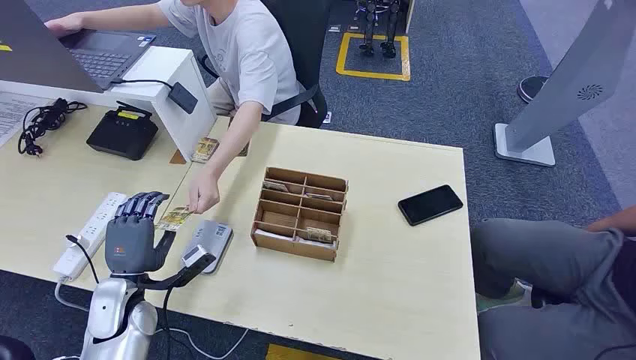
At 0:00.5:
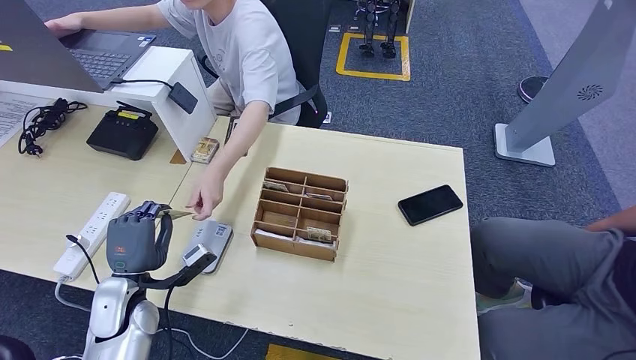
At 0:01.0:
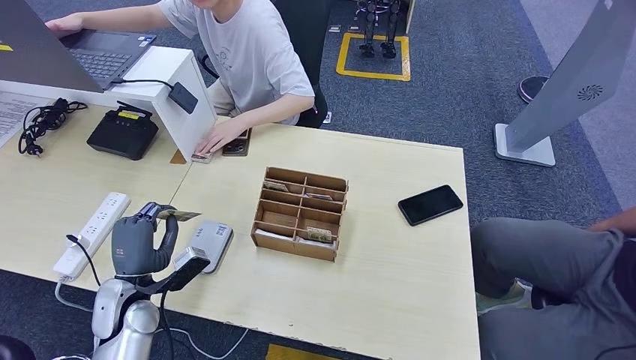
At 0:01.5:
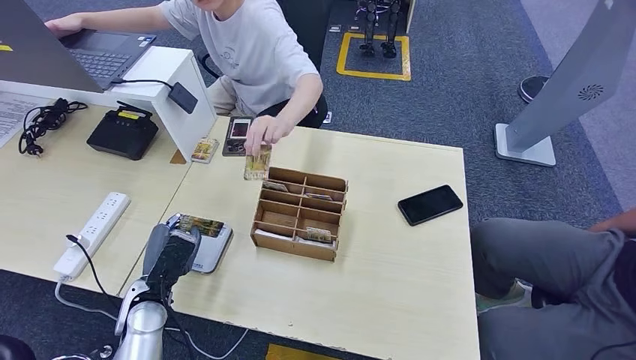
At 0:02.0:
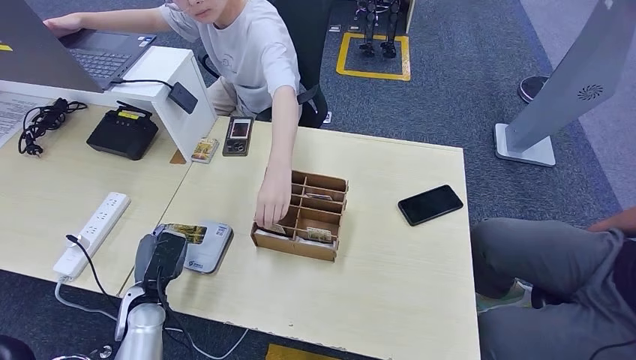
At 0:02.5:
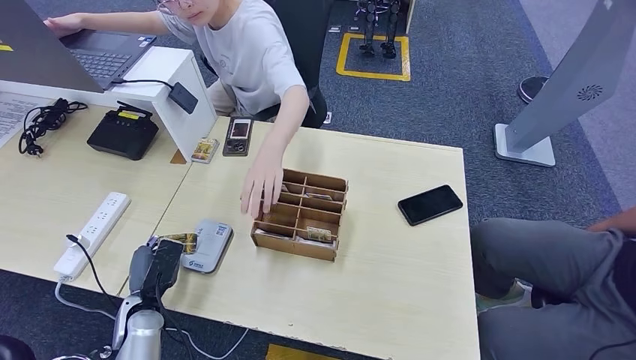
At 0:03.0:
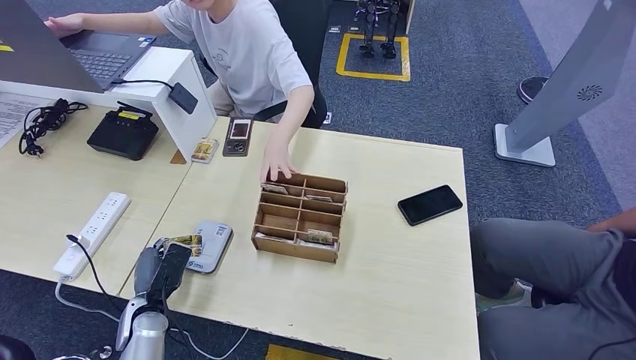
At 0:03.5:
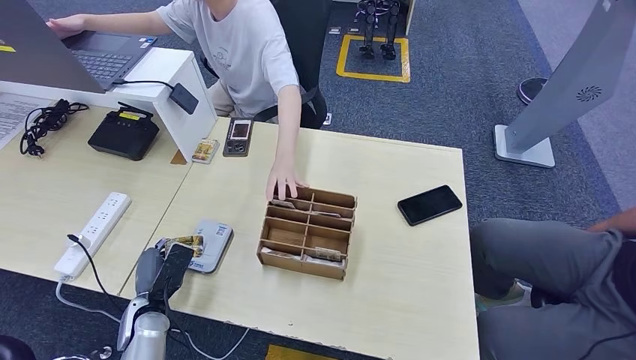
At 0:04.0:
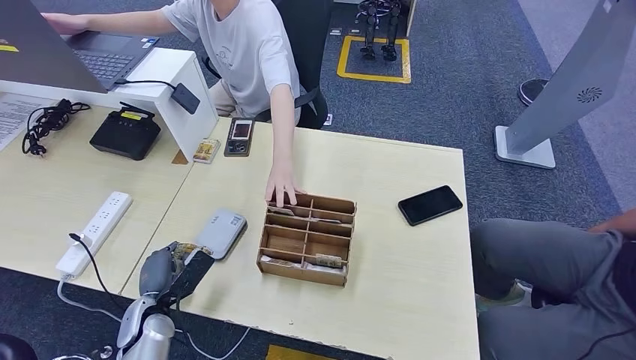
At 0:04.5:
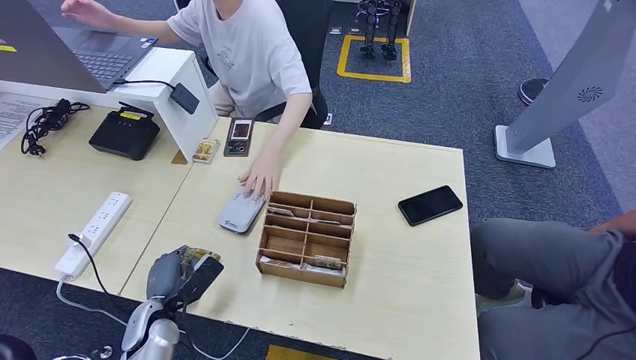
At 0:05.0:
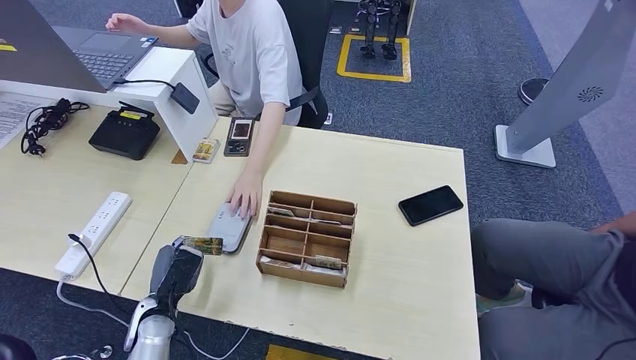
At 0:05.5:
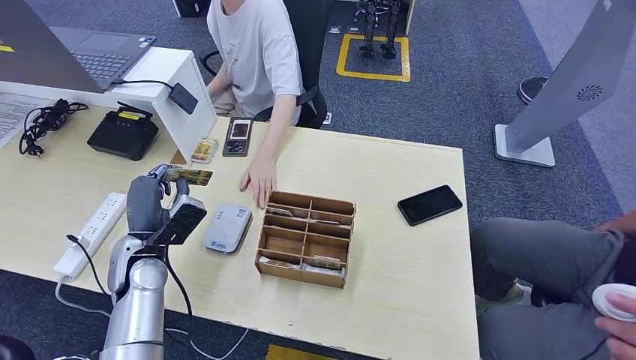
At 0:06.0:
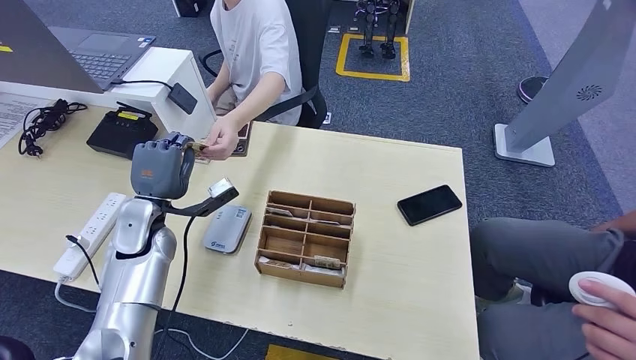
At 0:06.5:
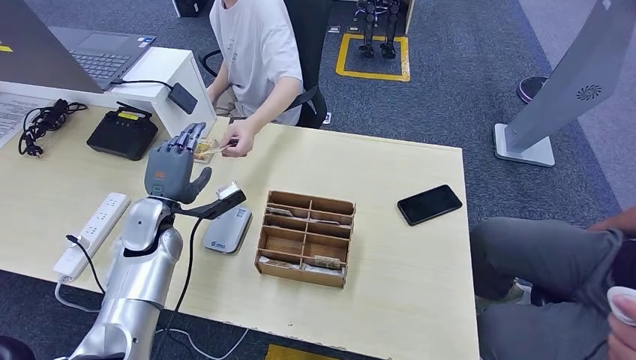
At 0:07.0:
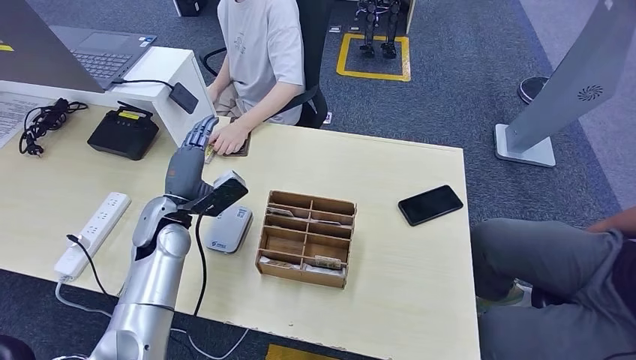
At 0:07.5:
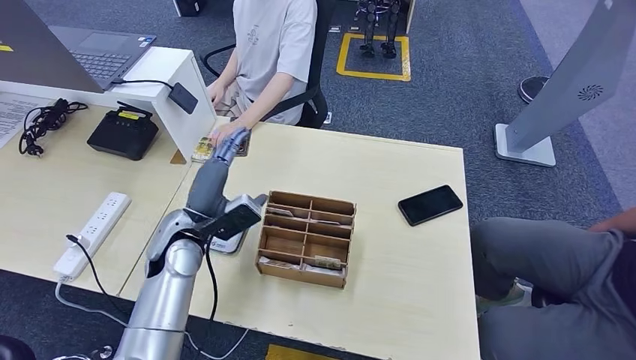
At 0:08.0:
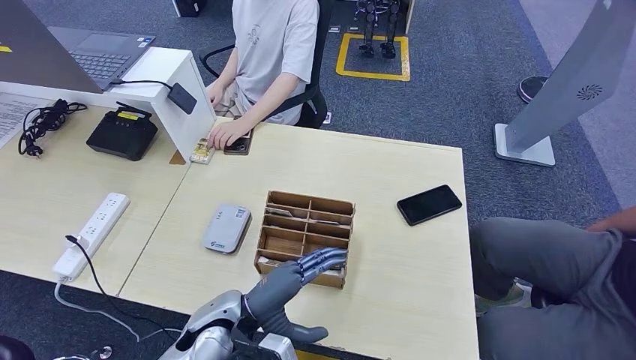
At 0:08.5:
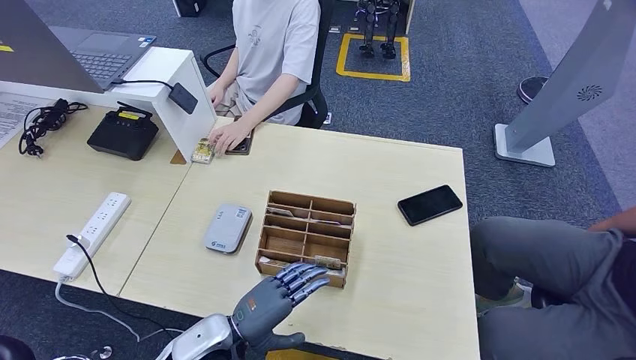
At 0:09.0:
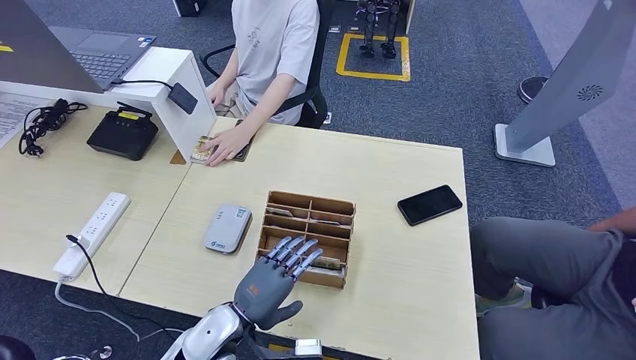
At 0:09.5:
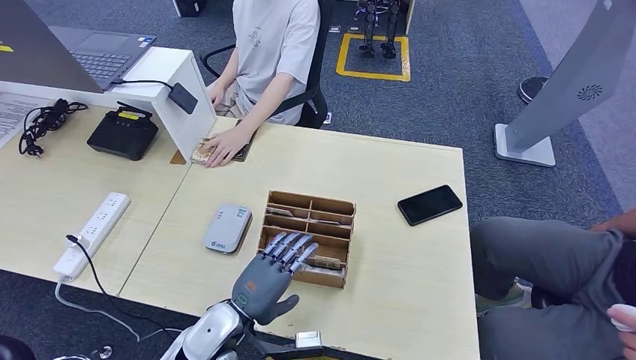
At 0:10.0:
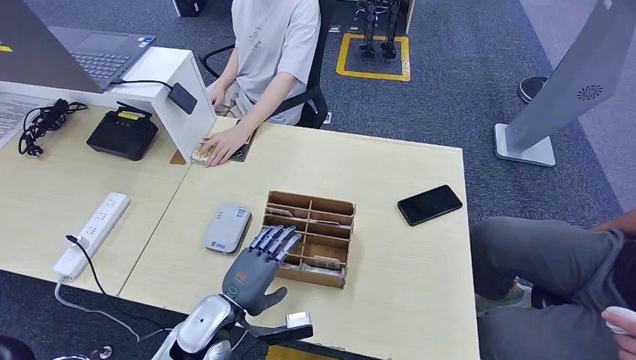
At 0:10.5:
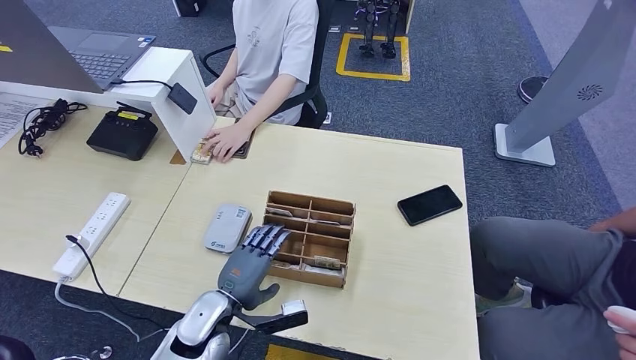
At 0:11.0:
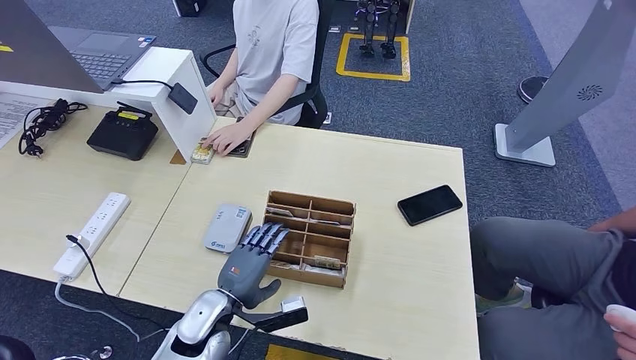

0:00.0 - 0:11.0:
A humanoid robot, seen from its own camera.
Step, 0:00.0 - 0:01.0: Take the ID card from the person's hand.
Step, 0:01.5 - 0:03.5: Place the ID card on the card reader.
Step, 0:04.0 - 0:07.0: Hand the ID card to the person.
0:02.0 - 0:03.5: The hands move only a little.
0:03.5 - 0:05.5: The left hand goes approximately 15 cm upward and forward.
0:05.5 - 0:07.5: The left hand heads to the right, covering some 5 cm.
0:07.5 - 0:09.0: The left hand goes roughly 20 cm backward, to the right and downward.
0:09.0 - 0:11.0: The hands move only a little.

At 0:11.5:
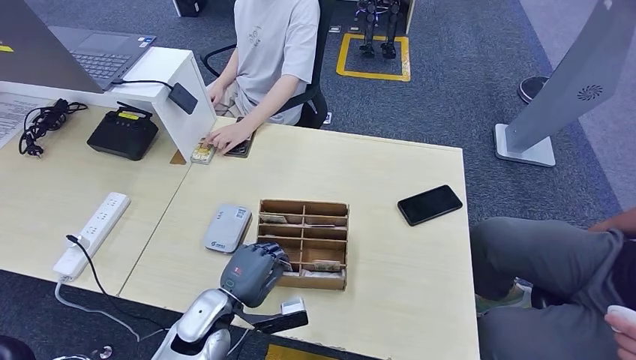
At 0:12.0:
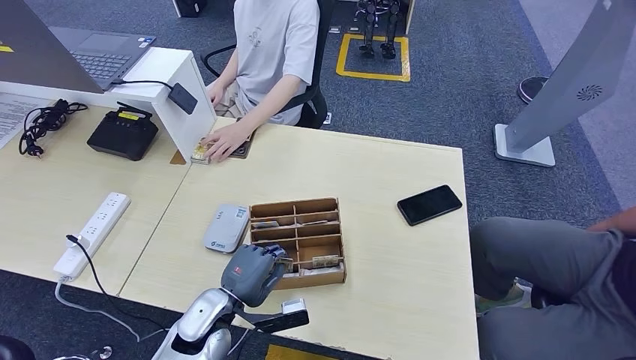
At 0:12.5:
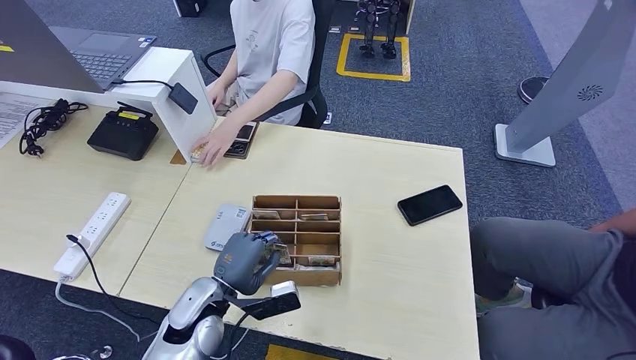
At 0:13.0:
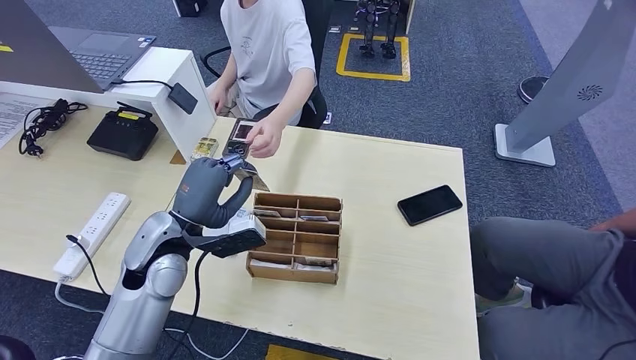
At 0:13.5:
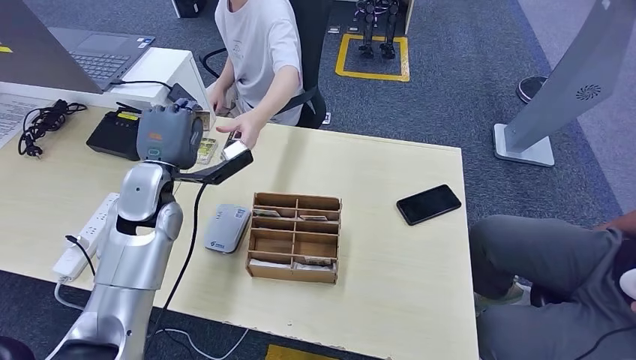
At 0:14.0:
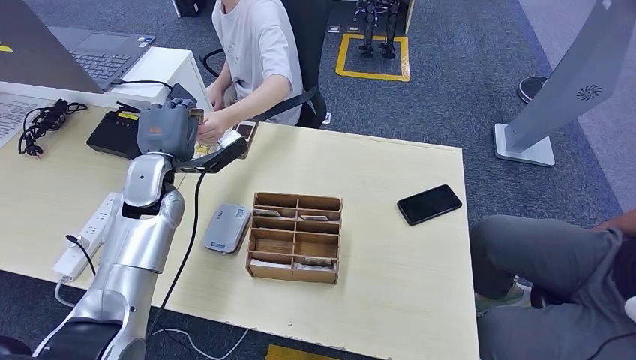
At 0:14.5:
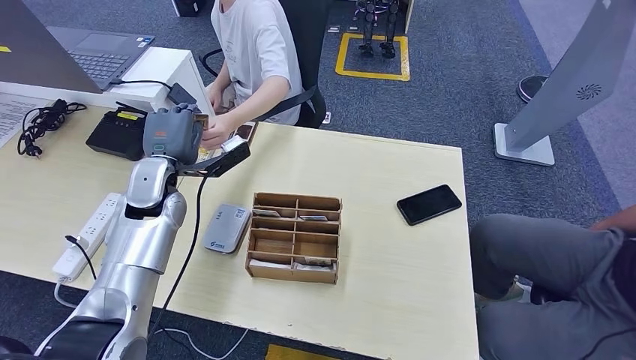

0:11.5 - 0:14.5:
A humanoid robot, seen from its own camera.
Step, 0:12.0 - 0:14.5: Hand the room key to the person.
0:11.5 - 0:13.0: The left hand heads upward and forward, covering some 15 cm.
0:13.0 - 0:14.5: The left hand moves forward and to the left, about 10 cm.
